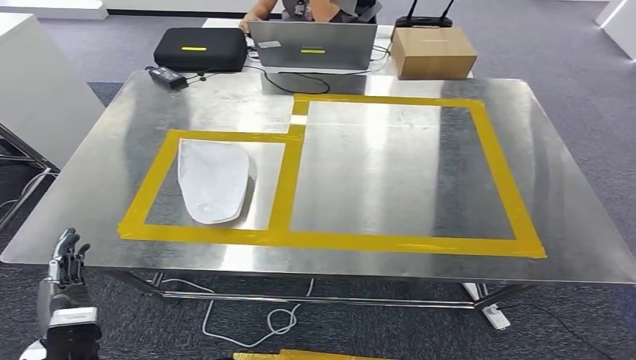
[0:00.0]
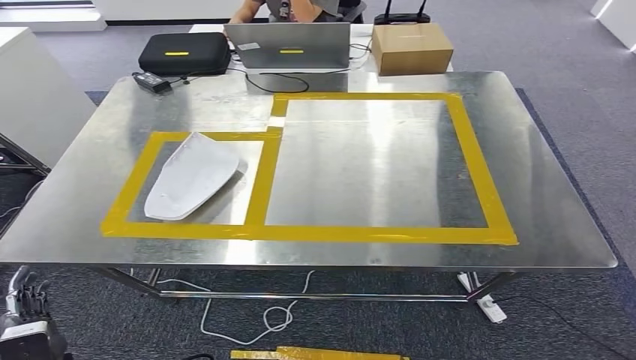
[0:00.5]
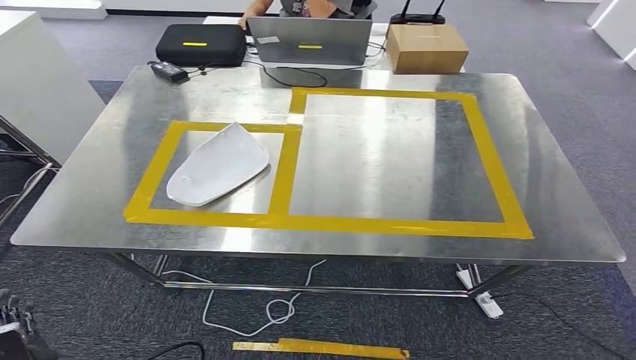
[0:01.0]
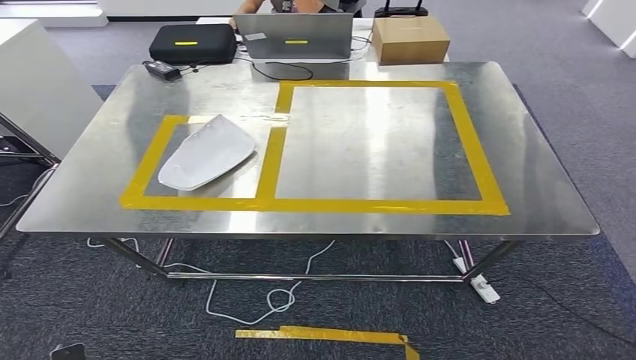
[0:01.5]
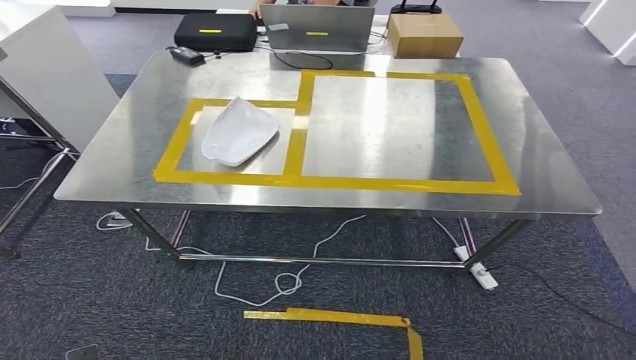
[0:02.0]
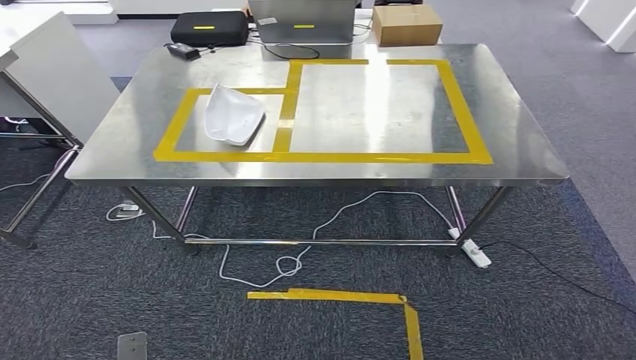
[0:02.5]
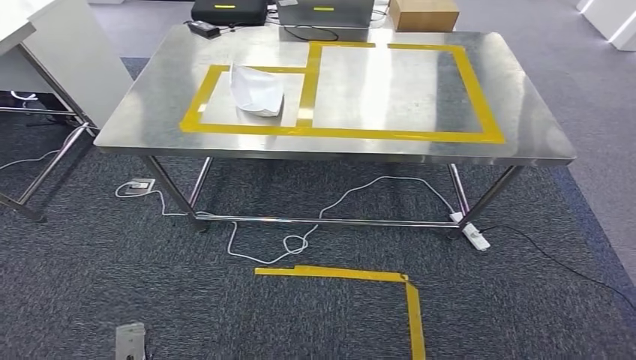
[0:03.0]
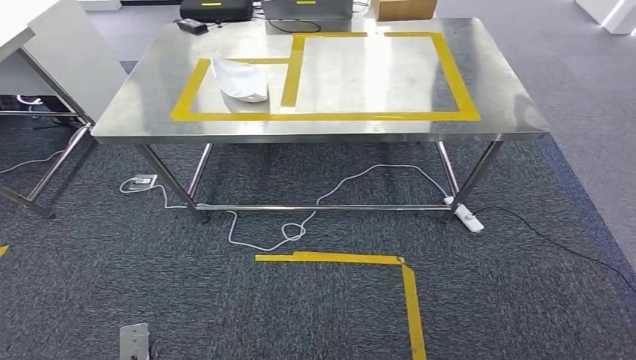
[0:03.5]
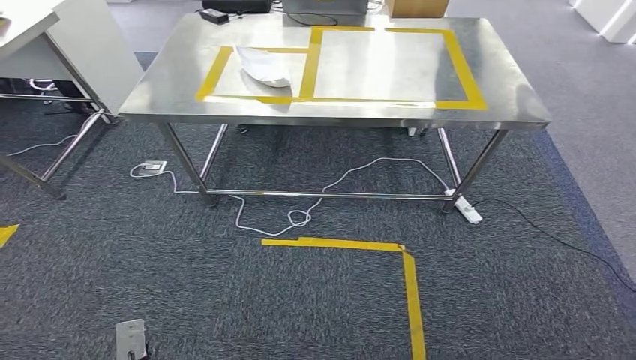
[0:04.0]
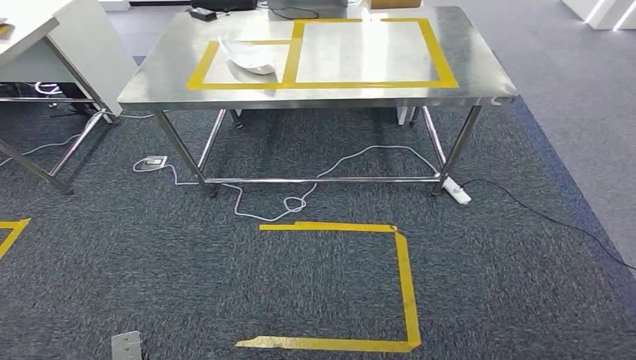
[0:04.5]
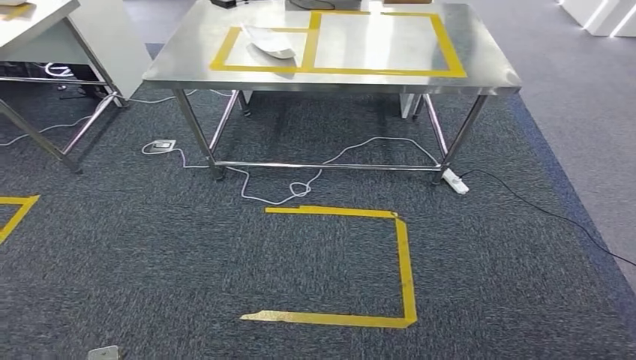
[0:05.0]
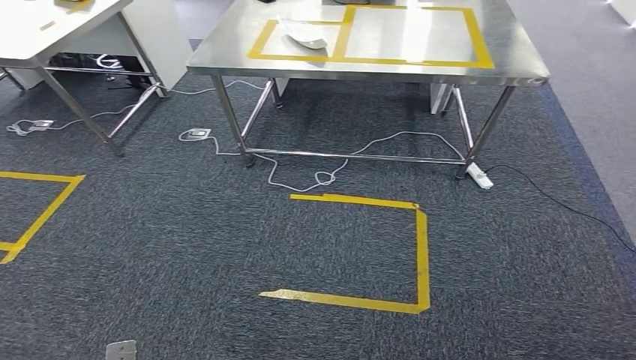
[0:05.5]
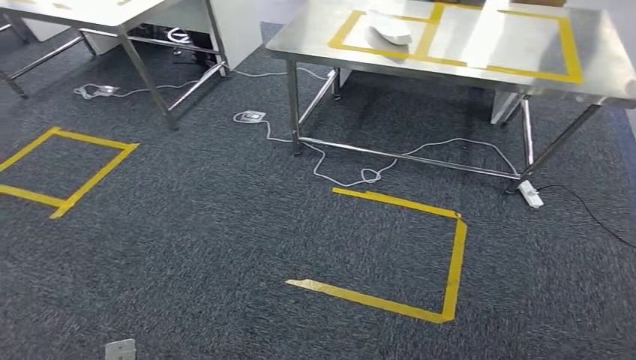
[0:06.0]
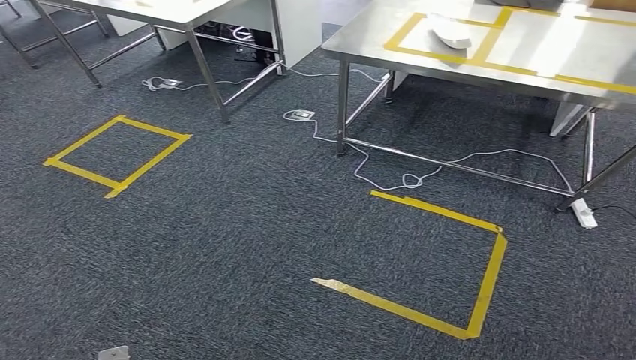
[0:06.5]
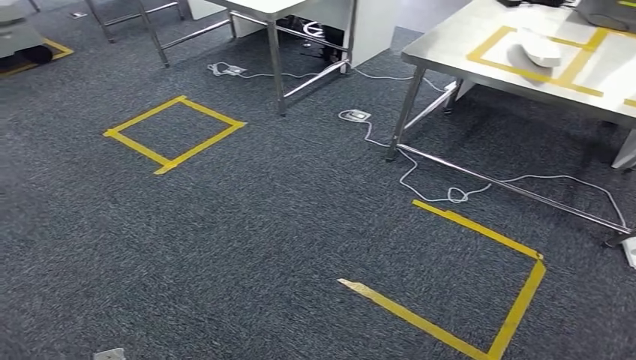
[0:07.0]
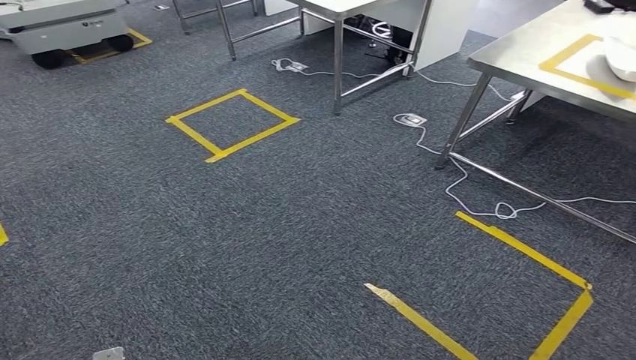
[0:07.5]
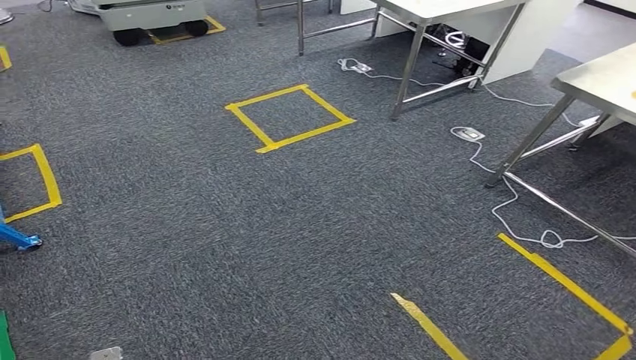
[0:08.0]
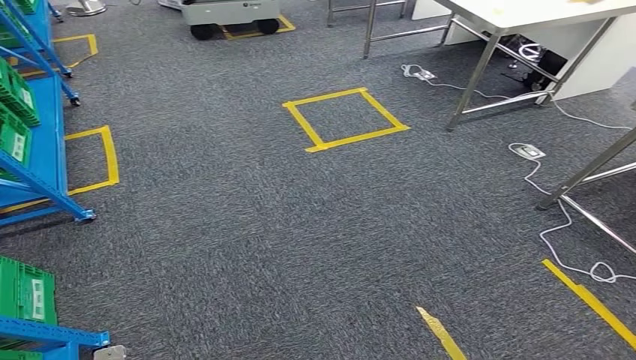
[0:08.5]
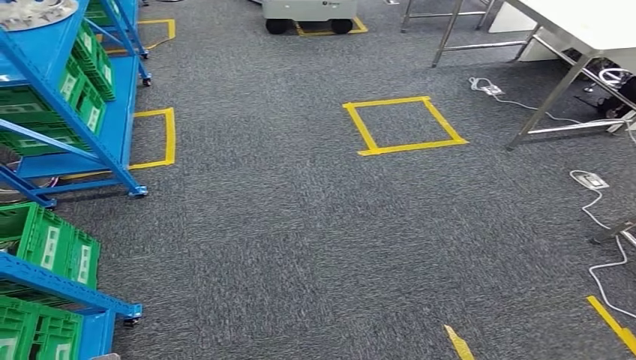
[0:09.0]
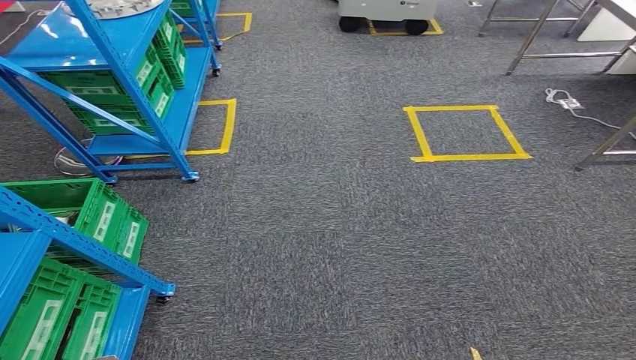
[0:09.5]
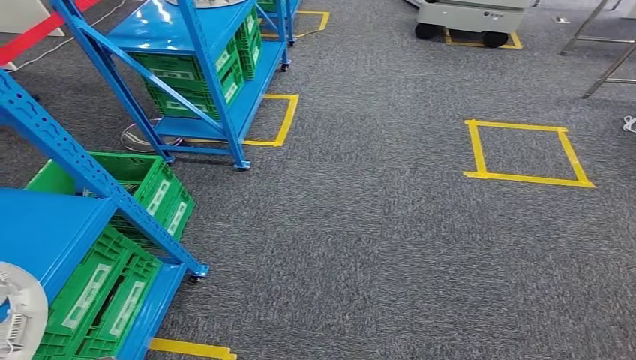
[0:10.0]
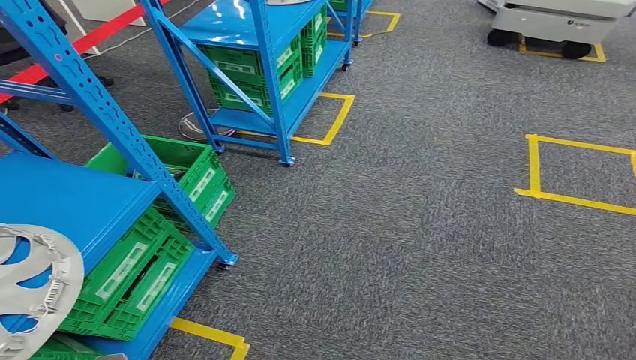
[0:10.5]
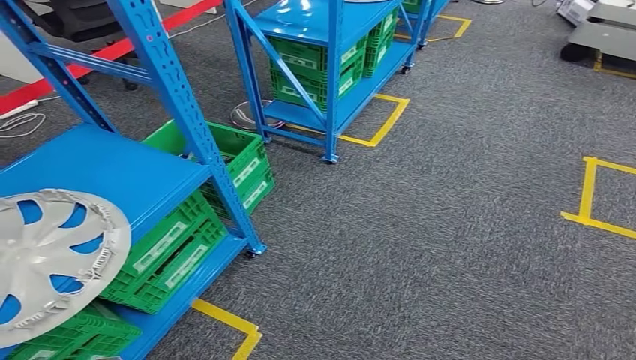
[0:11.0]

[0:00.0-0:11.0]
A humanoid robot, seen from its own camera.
Step, 0:00.0 to 0:02.5: Insert the small component into the corresponding slot on the workbench.

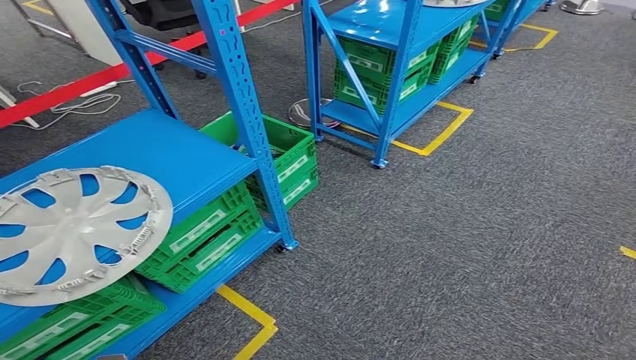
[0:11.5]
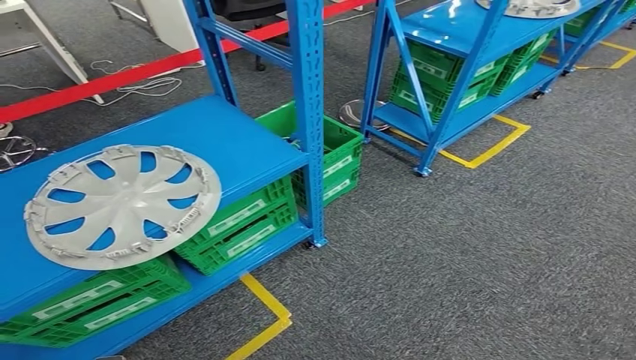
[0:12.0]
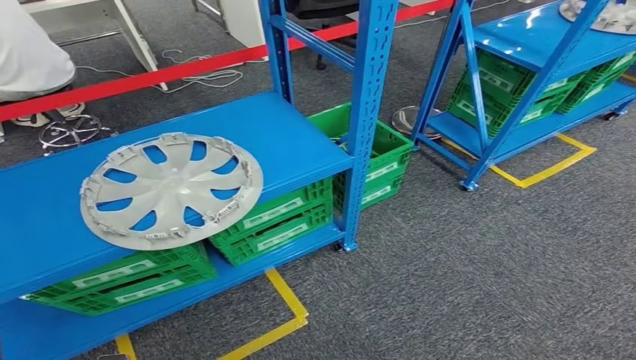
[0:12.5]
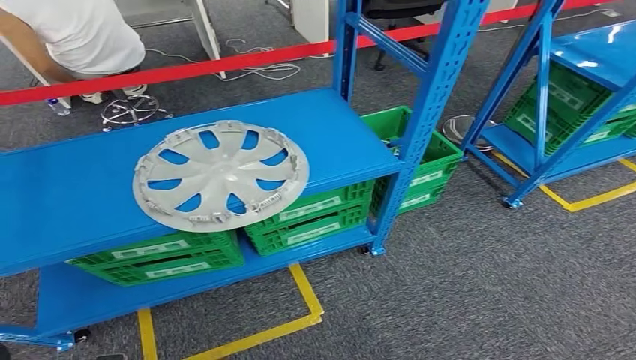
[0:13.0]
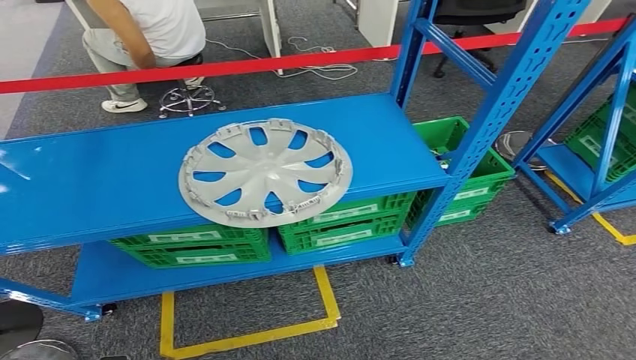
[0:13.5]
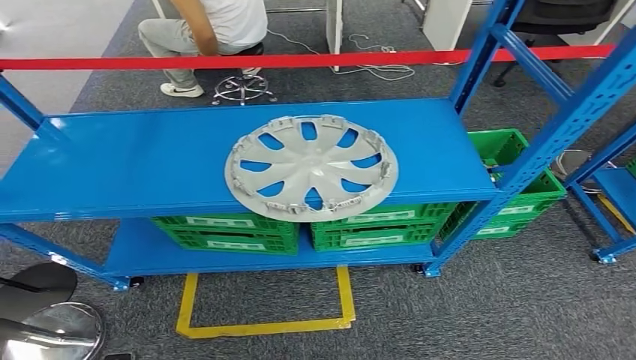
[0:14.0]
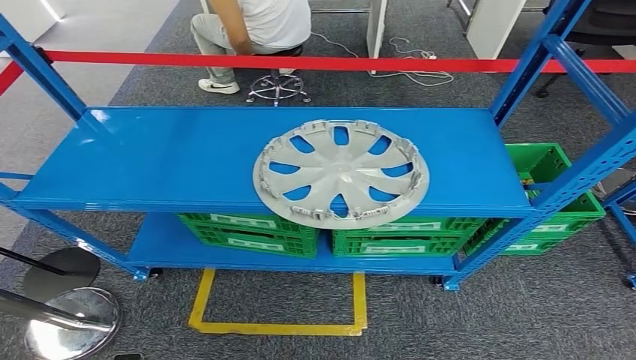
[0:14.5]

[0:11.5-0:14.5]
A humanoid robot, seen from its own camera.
Step, 0:11.5 to 0:14.5: Move to the initial position at the workbench.
